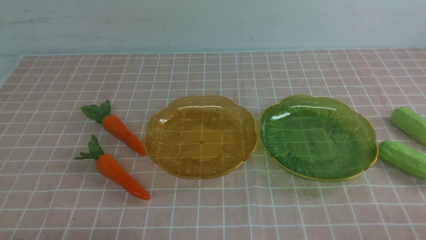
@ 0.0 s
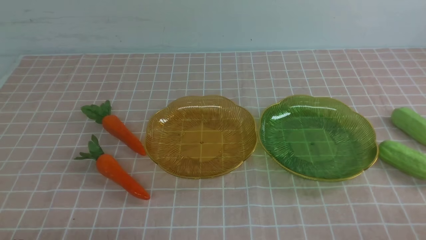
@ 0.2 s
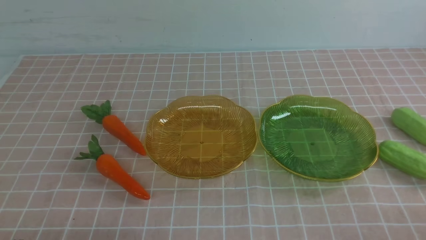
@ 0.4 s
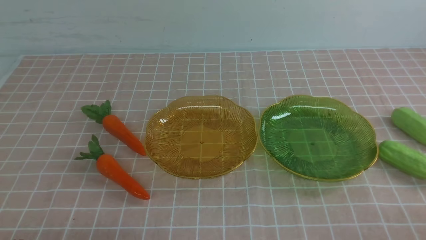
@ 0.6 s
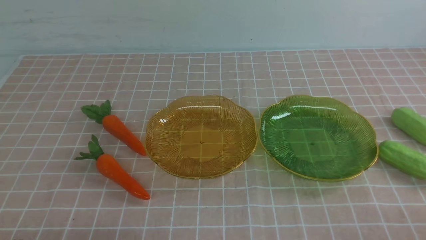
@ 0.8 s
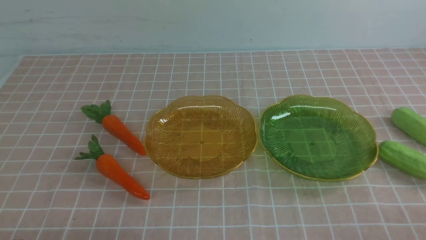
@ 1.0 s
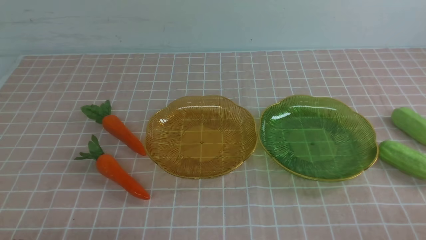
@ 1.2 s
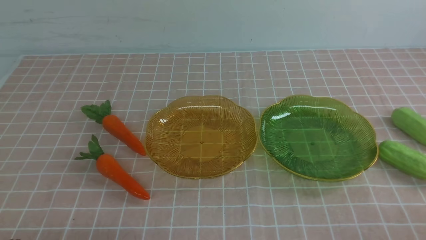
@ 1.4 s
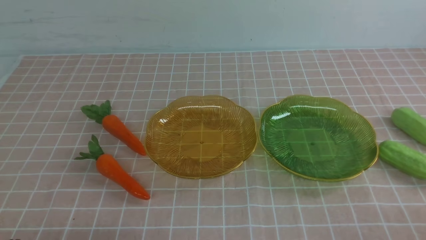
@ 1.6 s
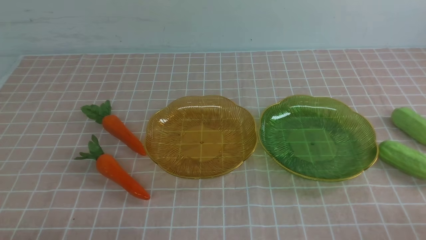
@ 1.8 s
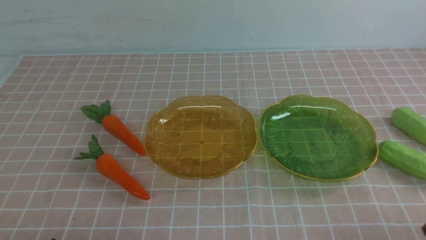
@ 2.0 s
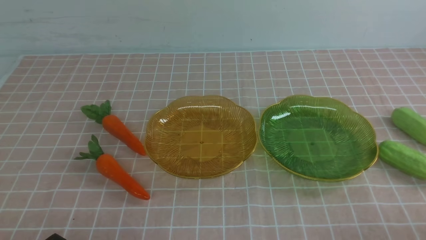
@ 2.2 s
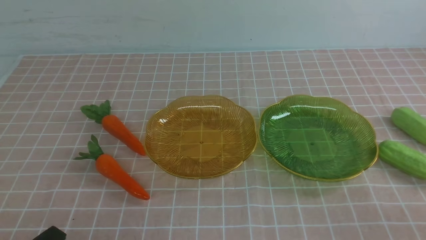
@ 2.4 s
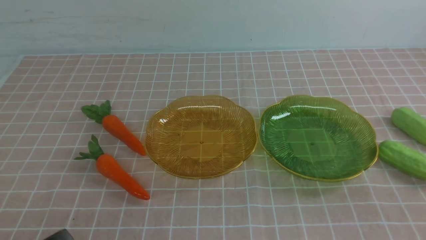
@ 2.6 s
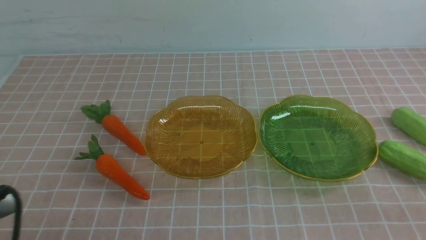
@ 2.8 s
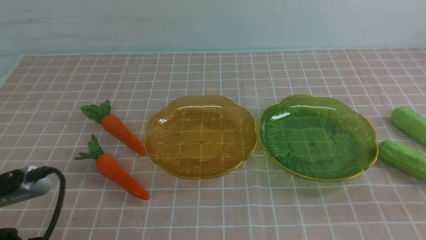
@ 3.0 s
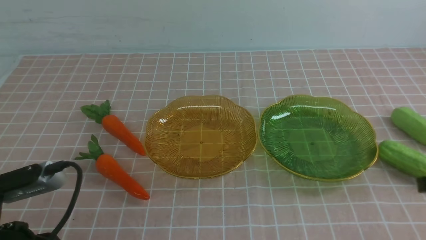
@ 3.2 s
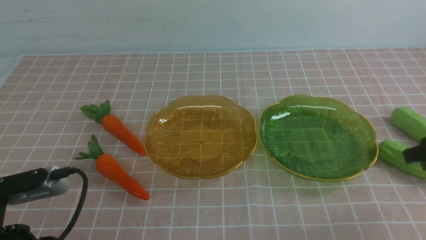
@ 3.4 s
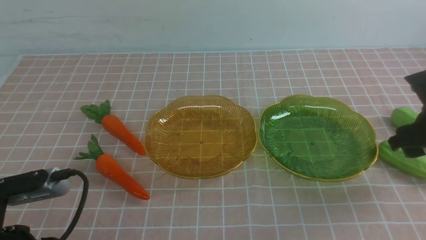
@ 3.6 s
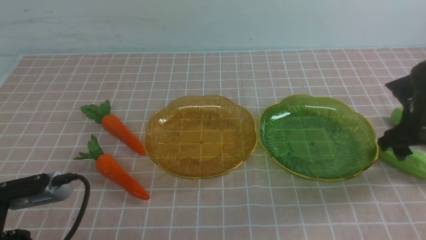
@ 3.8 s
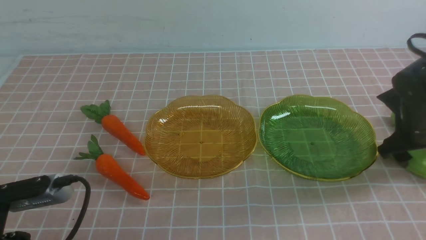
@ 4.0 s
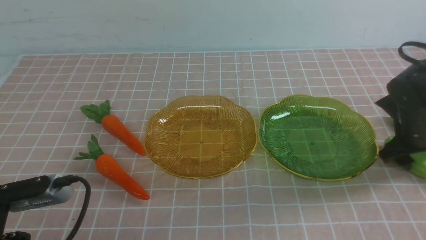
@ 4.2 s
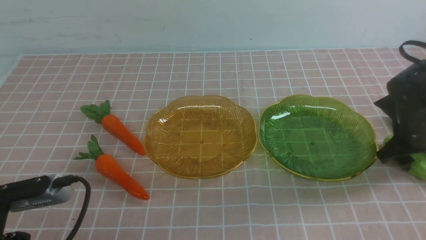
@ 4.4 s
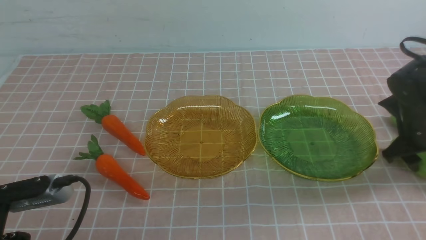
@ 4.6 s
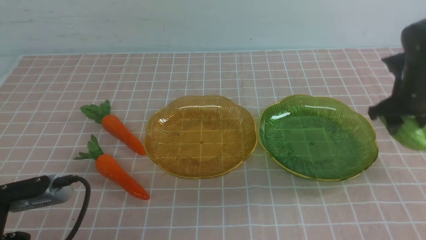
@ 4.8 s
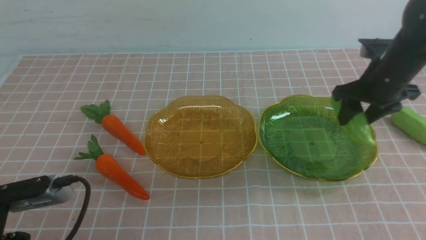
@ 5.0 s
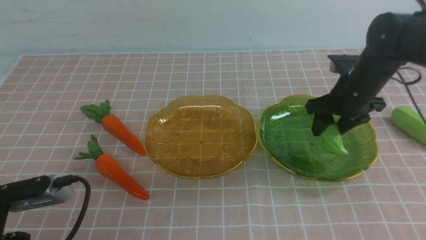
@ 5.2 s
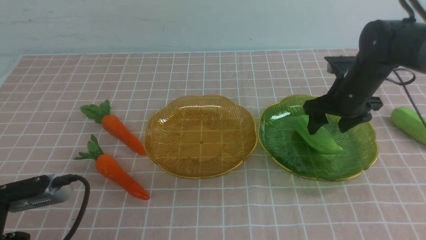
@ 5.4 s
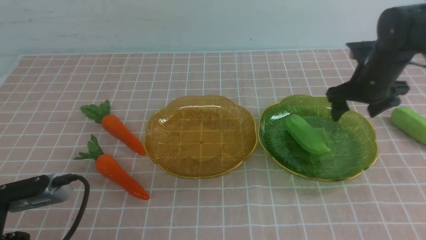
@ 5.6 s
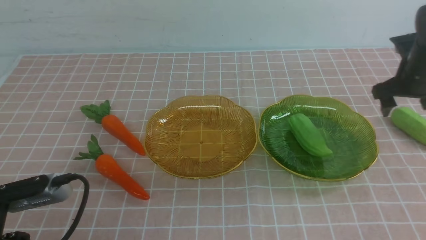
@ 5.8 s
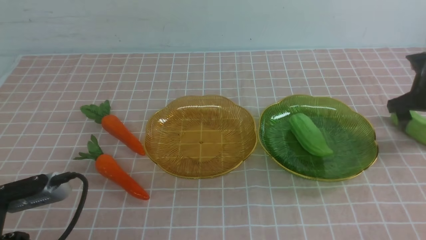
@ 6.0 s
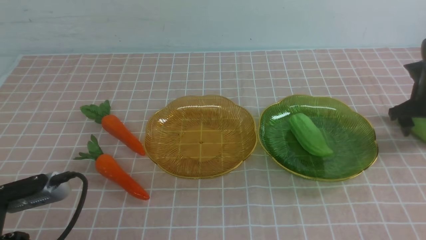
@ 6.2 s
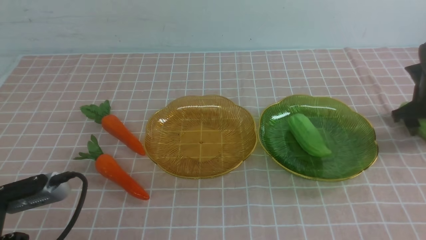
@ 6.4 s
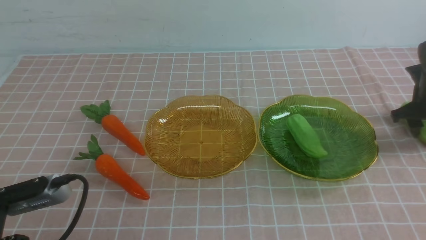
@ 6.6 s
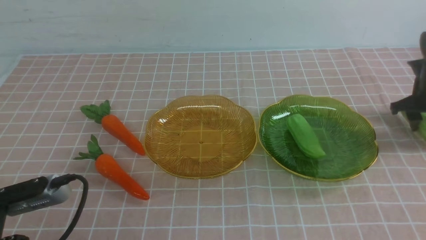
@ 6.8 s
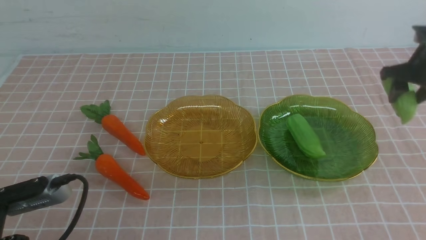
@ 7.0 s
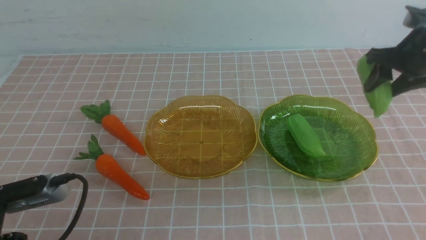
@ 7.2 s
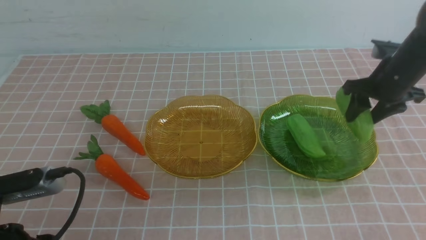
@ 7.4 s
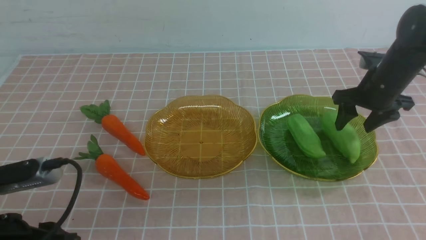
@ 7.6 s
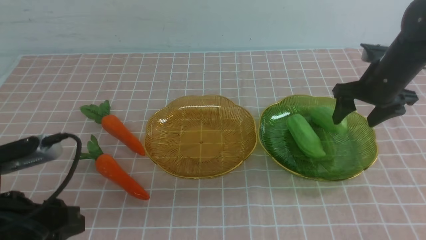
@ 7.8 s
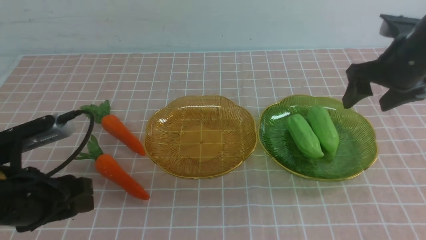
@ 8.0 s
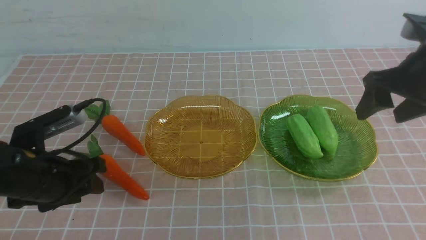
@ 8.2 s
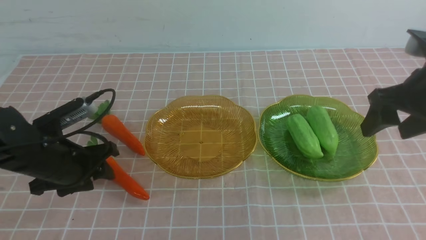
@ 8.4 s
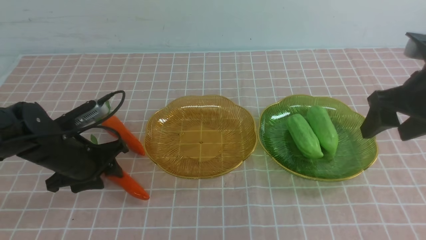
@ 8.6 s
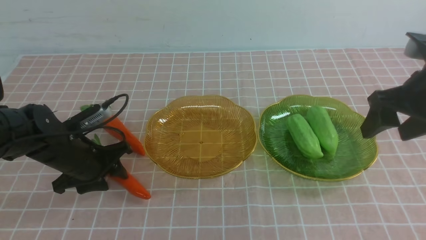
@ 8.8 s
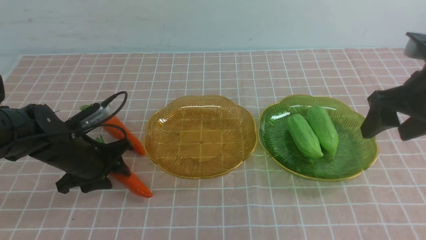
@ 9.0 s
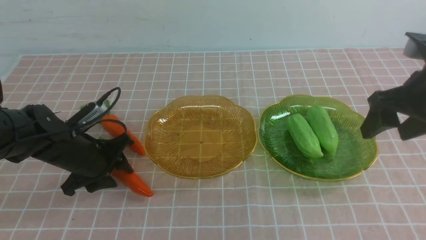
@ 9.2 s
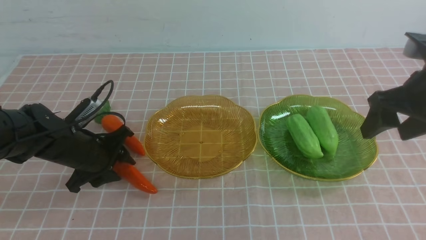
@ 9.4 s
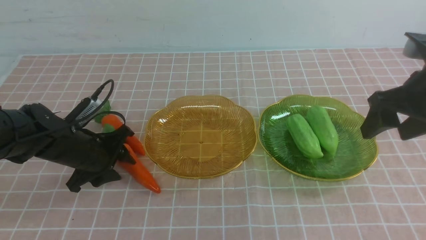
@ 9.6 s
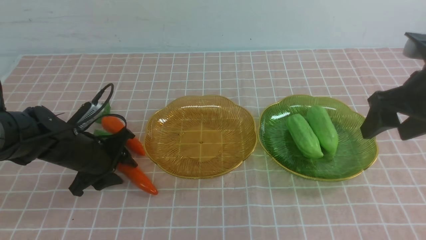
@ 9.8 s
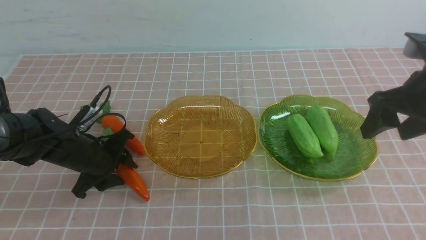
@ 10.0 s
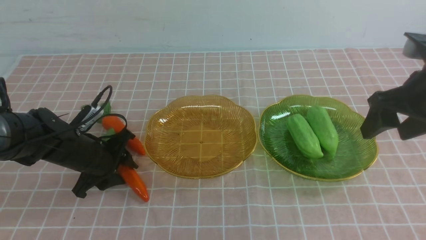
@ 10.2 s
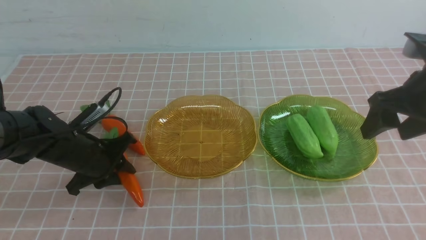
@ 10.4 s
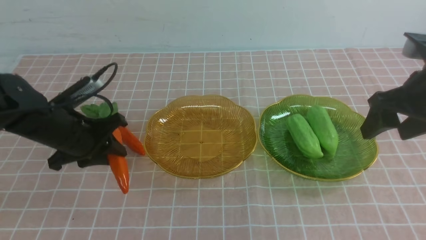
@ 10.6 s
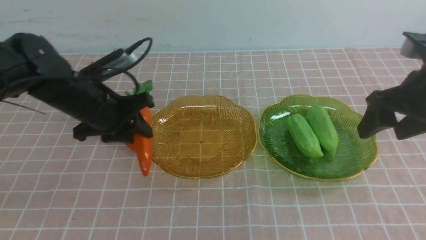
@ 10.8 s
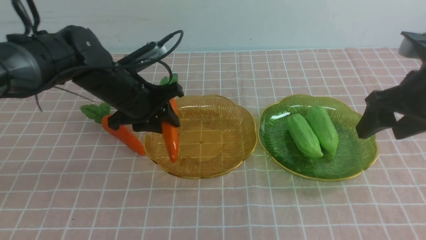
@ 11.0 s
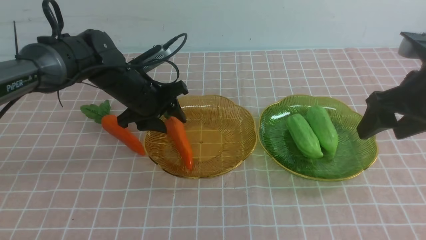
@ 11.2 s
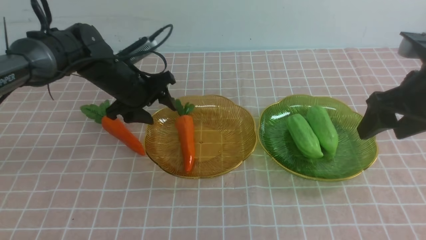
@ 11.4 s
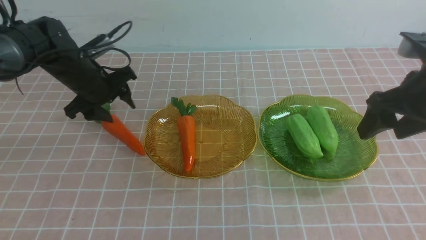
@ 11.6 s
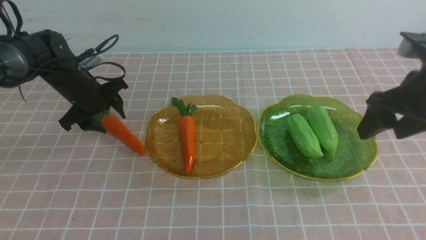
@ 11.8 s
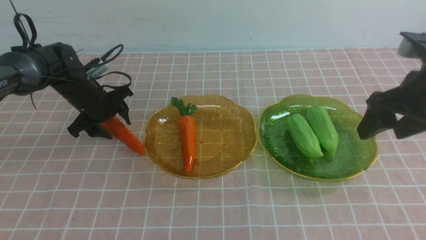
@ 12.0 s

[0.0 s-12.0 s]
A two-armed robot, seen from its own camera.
Step, 0.0 to 5.4 s: use the right arm to grab a chayote and put it into the right plate.
Step, 5.6 to 7.8 s: use the right arm to grab a chayote and put it into the right plate.
1.6 to 3.0 s: The left gripper goes approximately 10 cm upward.
3.0 to 4.4 s: The right gripper goes about 25 cm forward, and opens.
4.4 to 6.0 s: The right gripper heads forward, covering some 5 cm, and travels to the left and back again, about 10 cm each way.
6.0 to 7.6 s: The right gripper goes roughly 10 cm to the left.
7.6 to 9.0 s: The right gripper travels backward and upward by about 15 cm. The left gripper goes about 20 cm forward and downward.
9.0 to 10.4 s: There are only small adjustments of the grippers.
10.4 to 12.0 s: The left gripper goes approximately 10 cm forward, and opens.

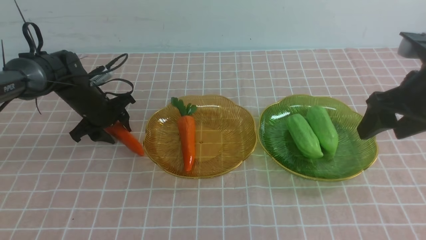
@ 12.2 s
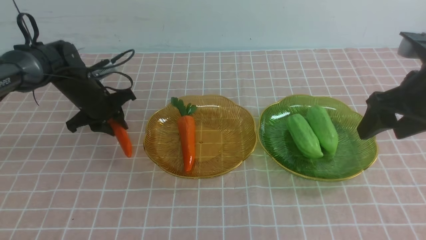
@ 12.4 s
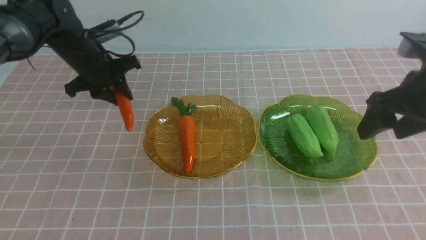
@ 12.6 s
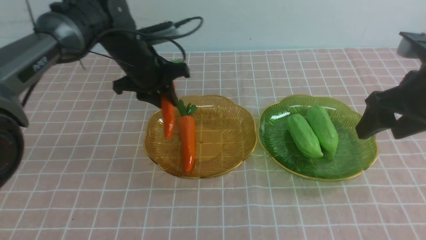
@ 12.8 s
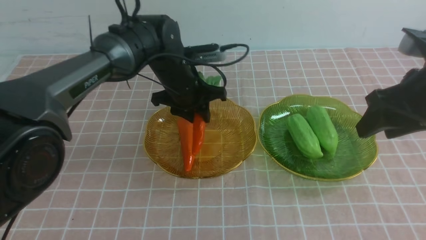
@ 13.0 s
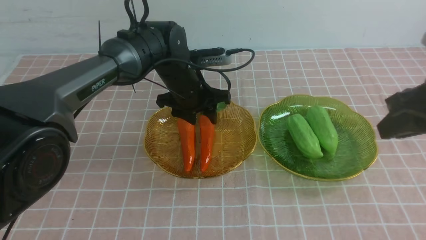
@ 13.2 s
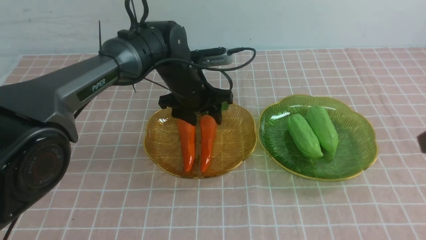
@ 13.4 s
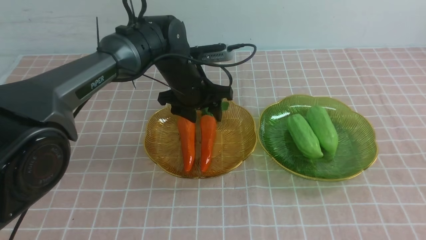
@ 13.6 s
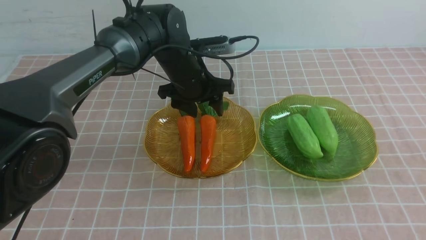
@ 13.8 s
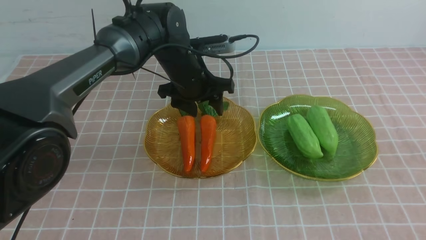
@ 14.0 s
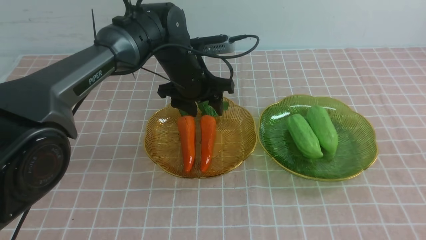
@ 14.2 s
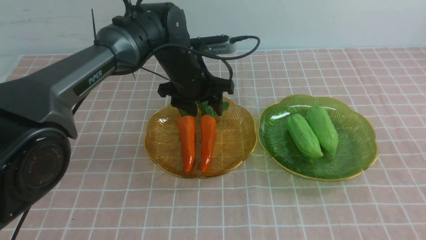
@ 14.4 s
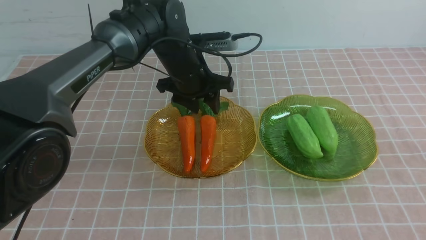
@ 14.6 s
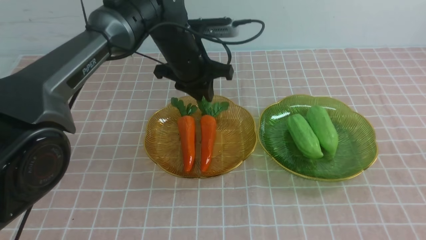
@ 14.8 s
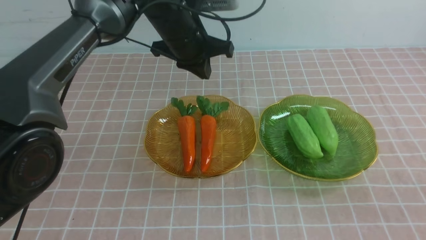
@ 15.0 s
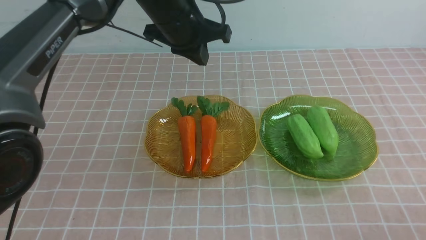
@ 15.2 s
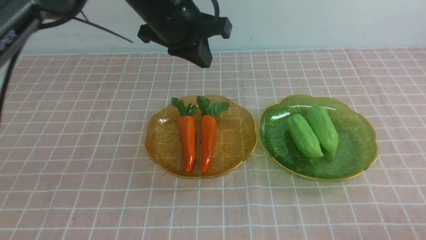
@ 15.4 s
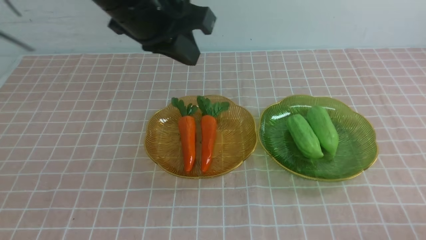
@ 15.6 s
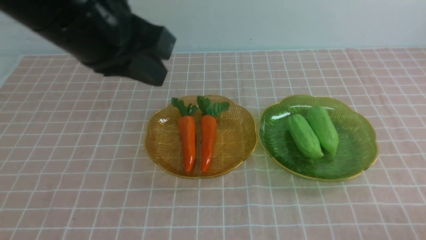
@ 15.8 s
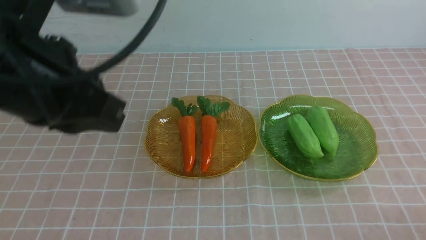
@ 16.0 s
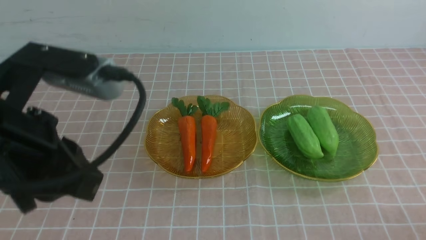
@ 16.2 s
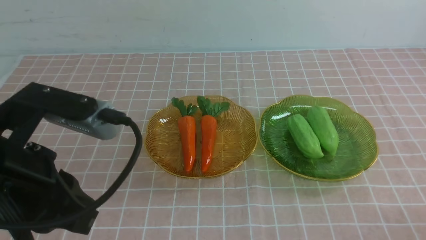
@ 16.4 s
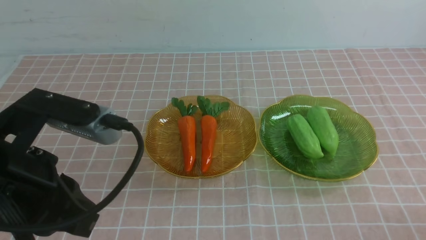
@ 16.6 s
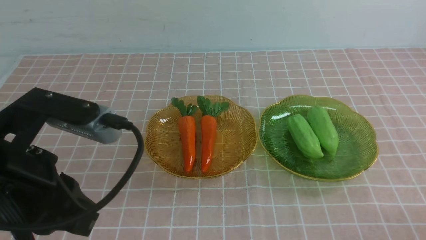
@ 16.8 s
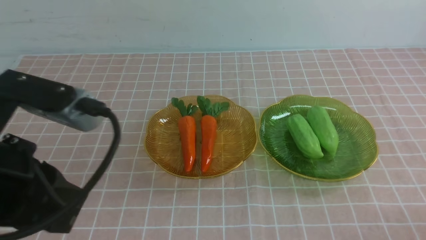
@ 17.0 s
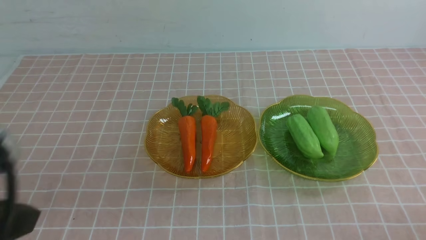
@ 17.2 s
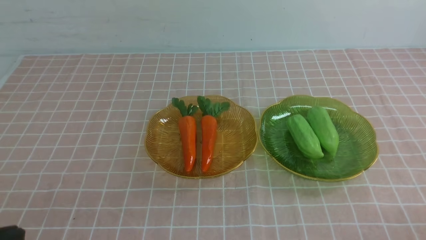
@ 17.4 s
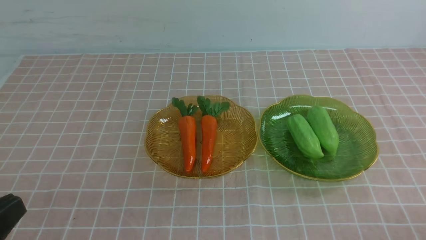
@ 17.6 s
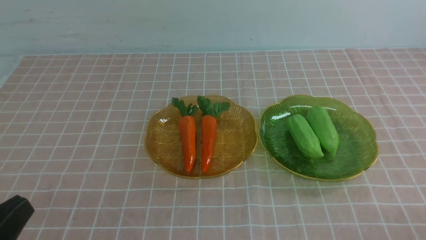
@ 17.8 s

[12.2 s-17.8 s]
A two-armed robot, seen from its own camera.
12.2 to 13.6 s: The right gripper heads backward, covering approximately 15 cm, and closes; the left gripper is displaced to the right by about 20 cm, and opens its fingers.
13.6 to 15.0 s: The left gripper travels upward and backward by about 20 cm, and closes up, while the right gripper shifts some 15 cm downward and backward.
15.0 to 16.4 s: The left gripper travels backward and to the left by approximately 30 cm.
16.4 to 17.8 s: The left gripper shifts some 15 cm downward.
